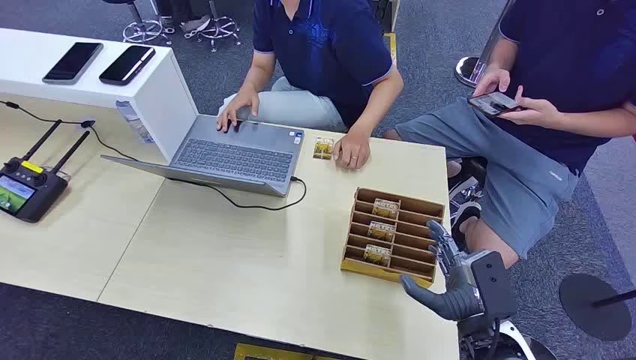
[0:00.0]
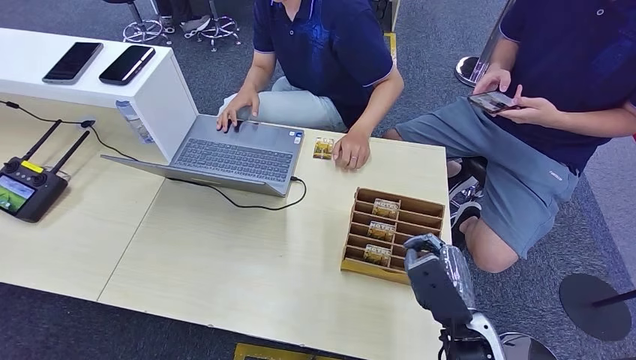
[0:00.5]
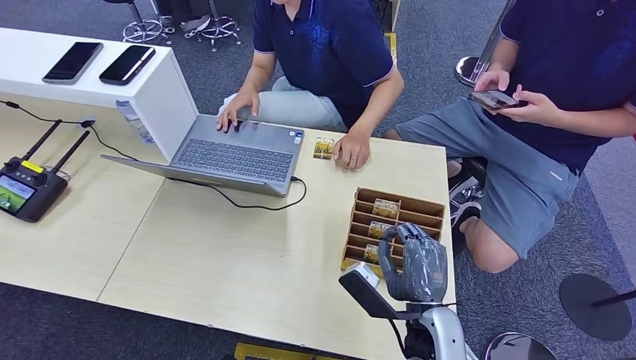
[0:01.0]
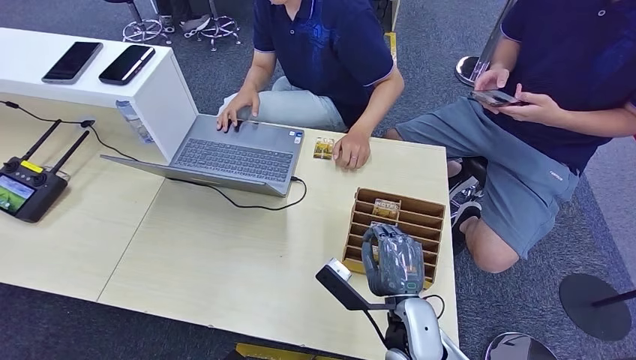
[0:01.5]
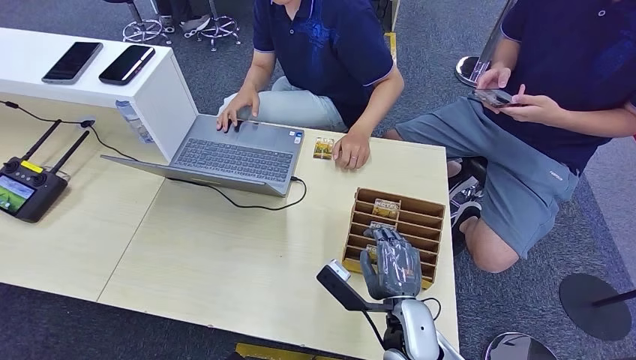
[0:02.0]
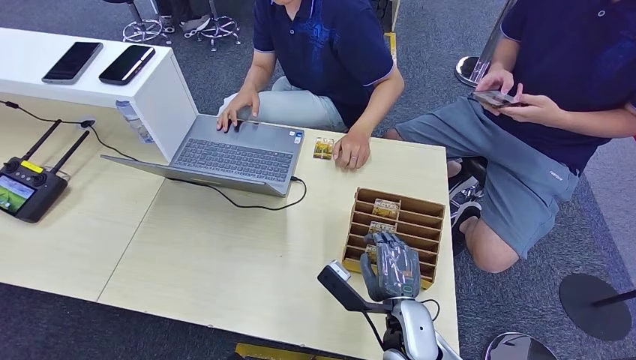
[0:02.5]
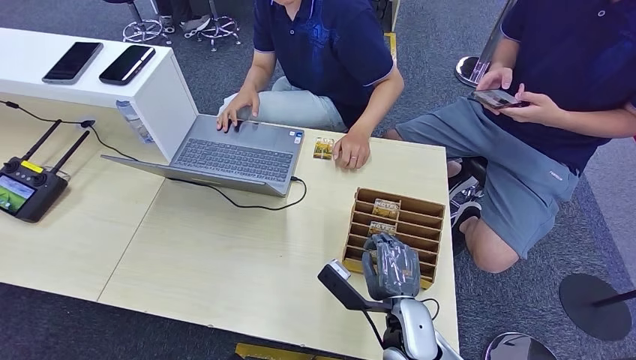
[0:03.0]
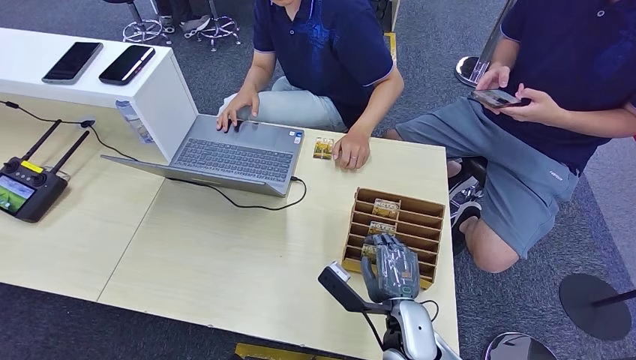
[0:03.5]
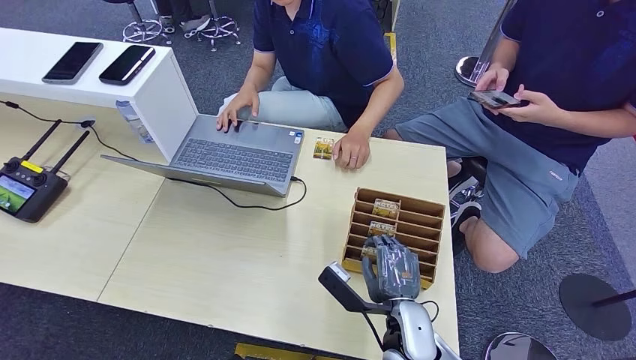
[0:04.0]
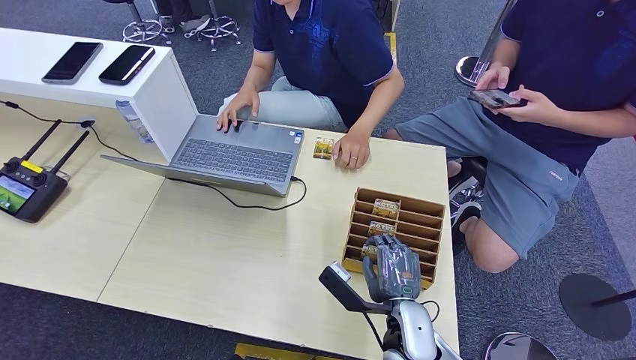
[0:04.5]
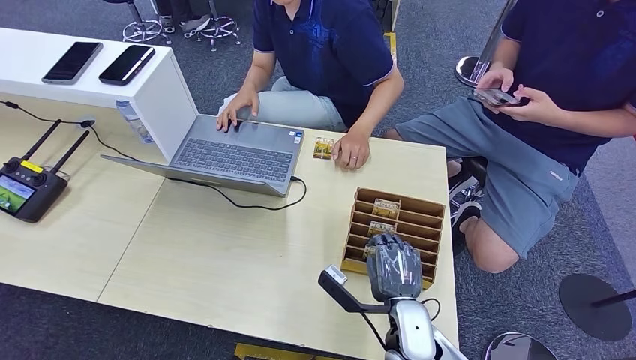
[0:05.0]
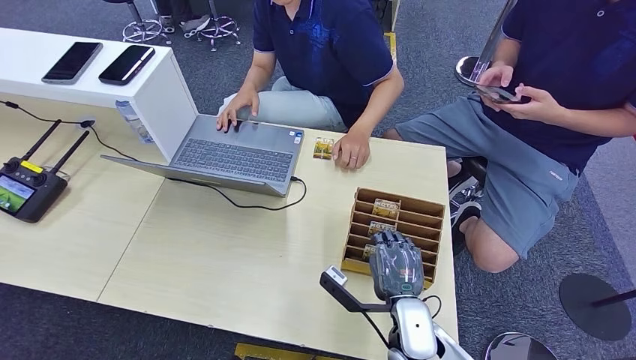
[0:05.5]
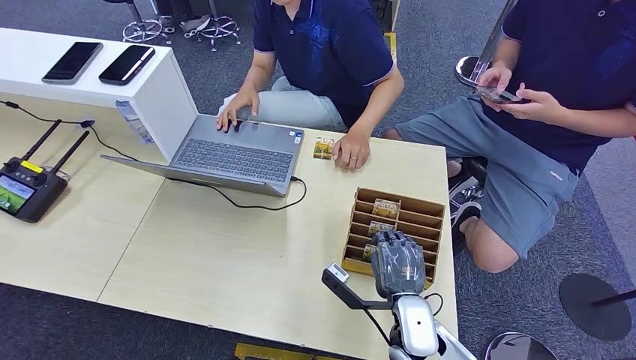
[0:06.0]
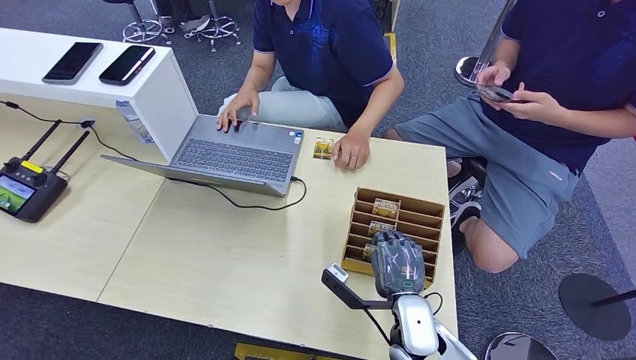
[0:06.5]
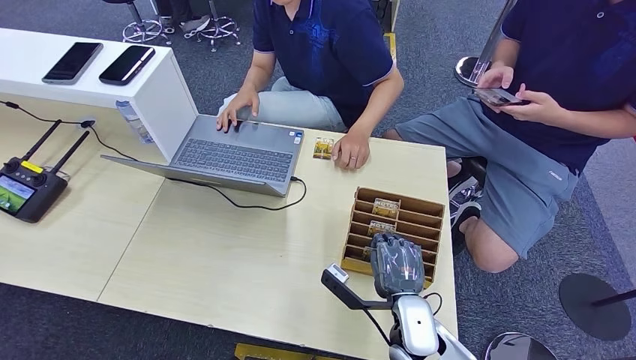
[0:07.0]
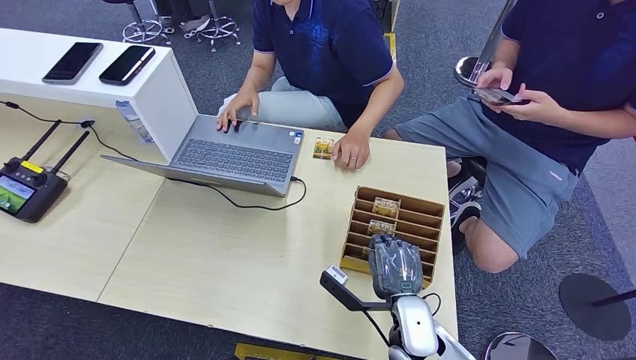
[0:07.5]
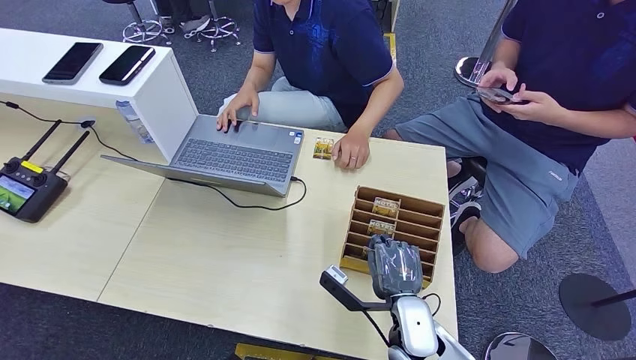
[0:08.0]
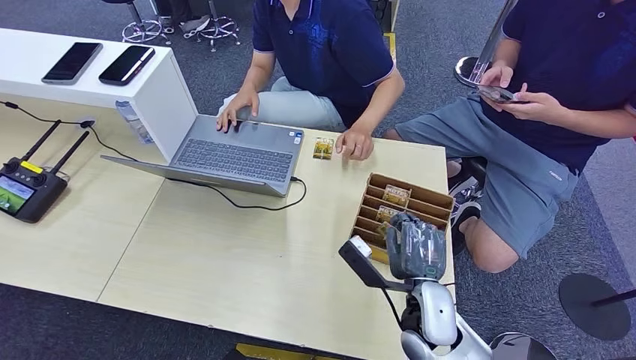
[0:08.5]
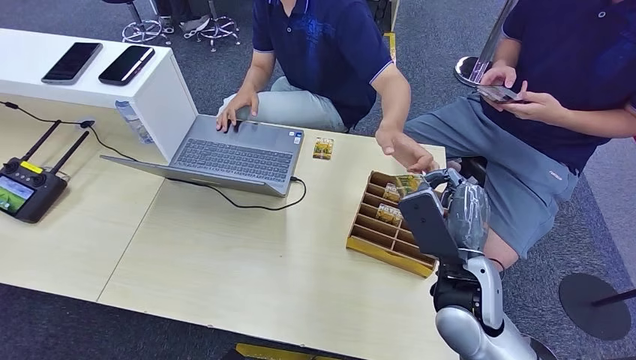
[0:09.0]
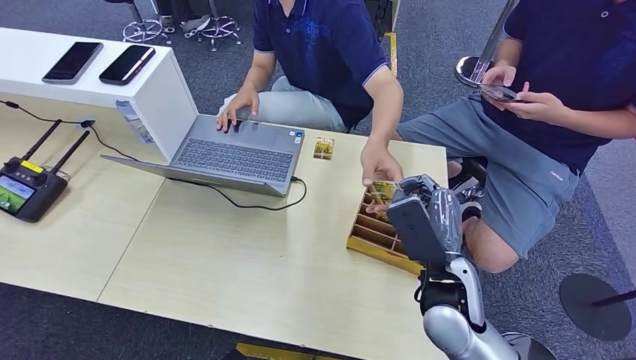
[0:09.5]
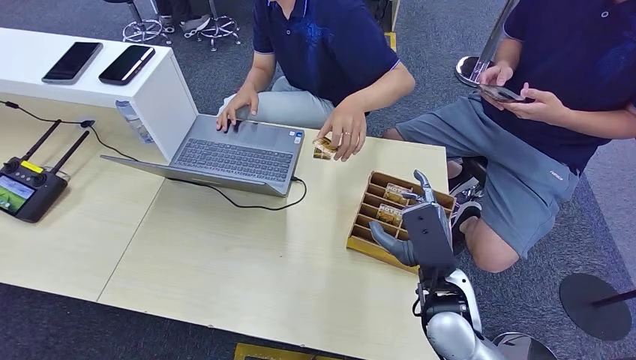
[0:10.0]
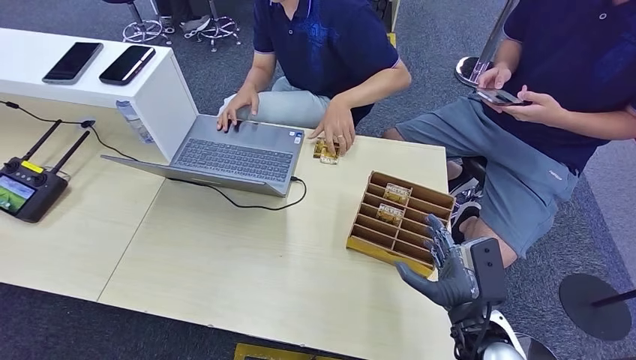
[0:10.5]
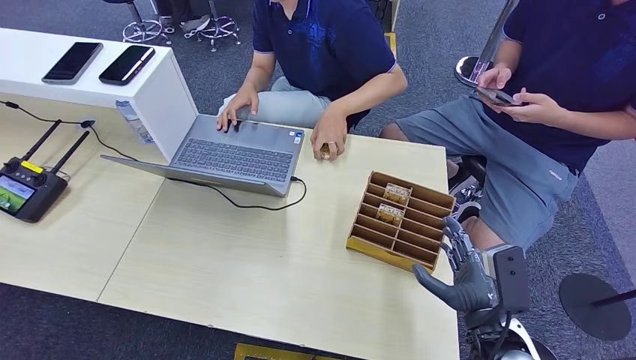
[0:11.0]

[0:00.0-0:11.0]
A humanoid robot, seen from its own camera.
Step, 0:00.0 to 0:08.5: Pick up the room card from the card holder.
Step, 0:09.0 to 0:11.0: Hand the room card to the target.
0:02.0 to 0:03.5: The two hands keep their place.
0:03.5 to 0:05.5: The hands stay close to where they were, moving slightly.
0:05.5 to 0:07.5: The two hands keep their place.
0:07.5 to 0:09.0: The right hand is displaced upward by approximately 15 cm.
0:09.0 to 0:11.0: The right hand is displaced to the right, backward and downward by about 10 cm.
